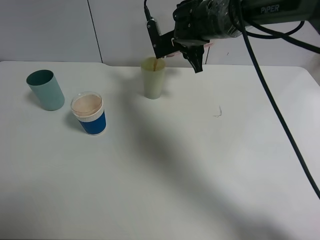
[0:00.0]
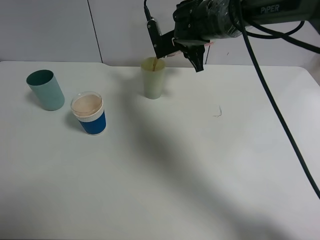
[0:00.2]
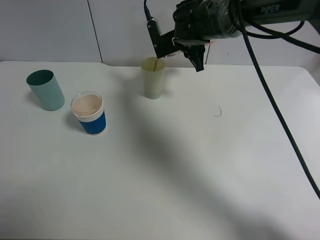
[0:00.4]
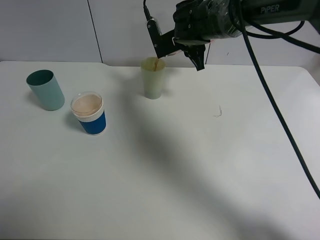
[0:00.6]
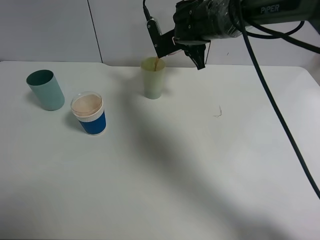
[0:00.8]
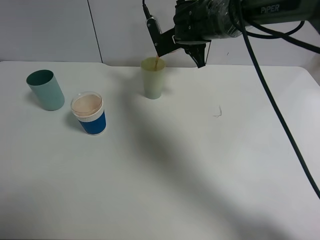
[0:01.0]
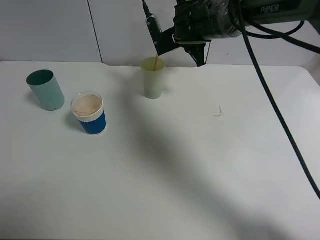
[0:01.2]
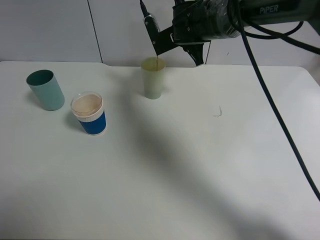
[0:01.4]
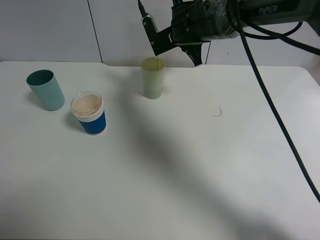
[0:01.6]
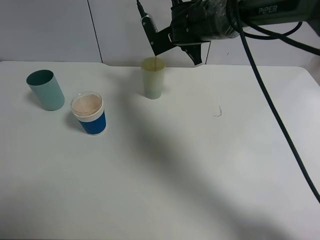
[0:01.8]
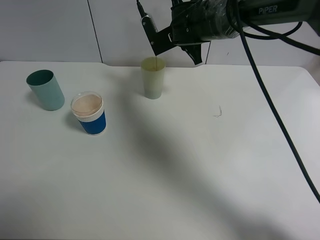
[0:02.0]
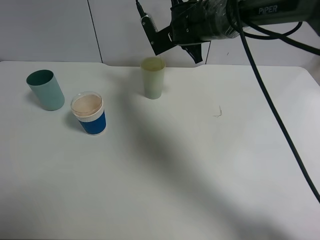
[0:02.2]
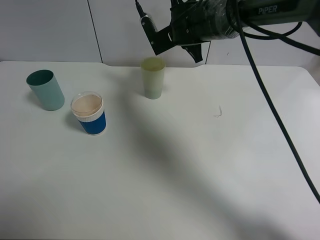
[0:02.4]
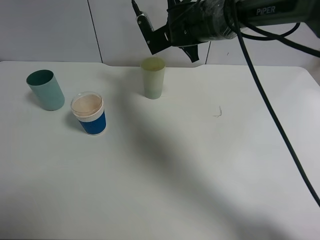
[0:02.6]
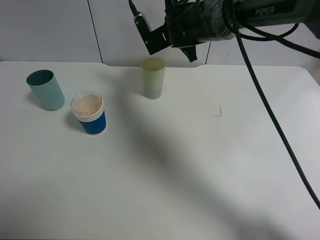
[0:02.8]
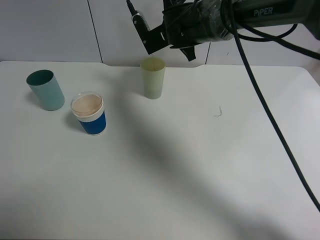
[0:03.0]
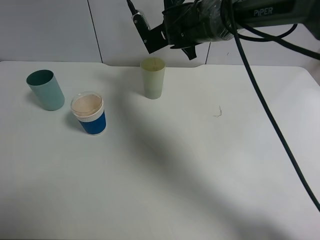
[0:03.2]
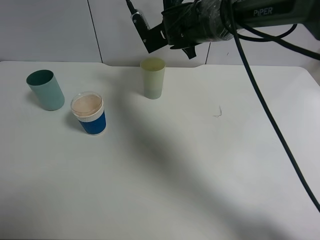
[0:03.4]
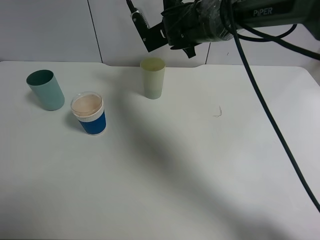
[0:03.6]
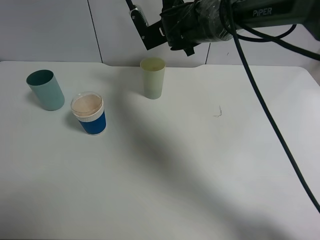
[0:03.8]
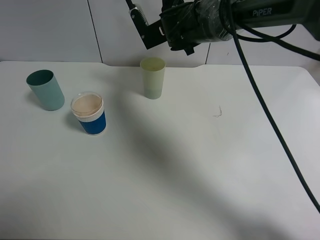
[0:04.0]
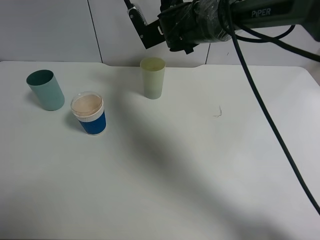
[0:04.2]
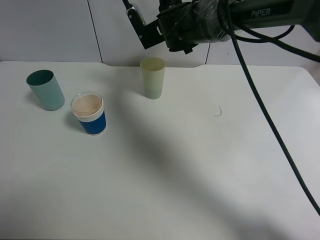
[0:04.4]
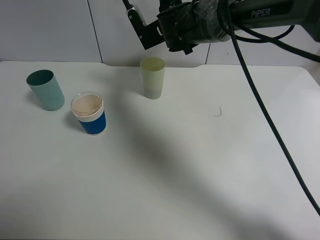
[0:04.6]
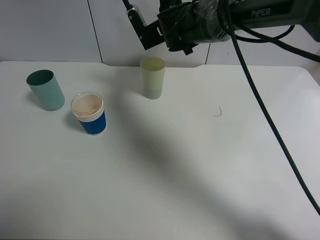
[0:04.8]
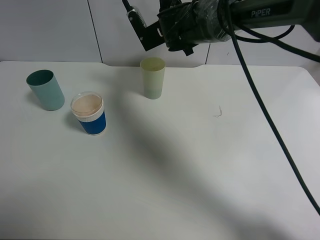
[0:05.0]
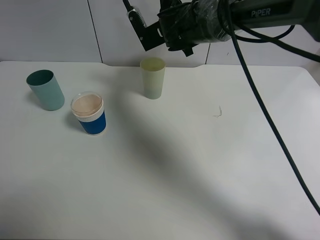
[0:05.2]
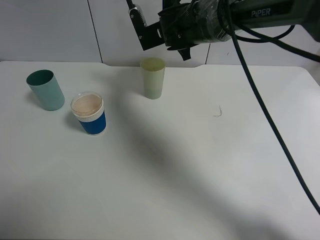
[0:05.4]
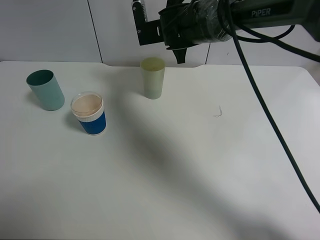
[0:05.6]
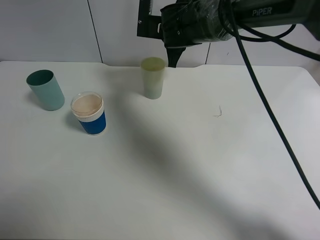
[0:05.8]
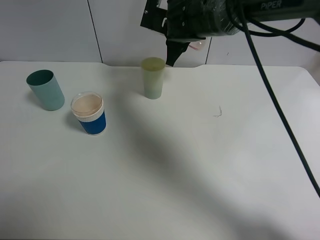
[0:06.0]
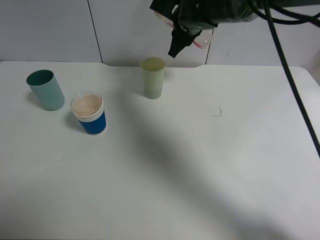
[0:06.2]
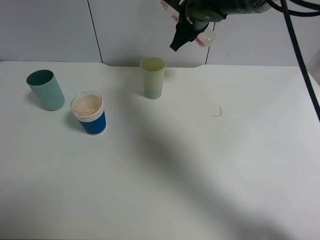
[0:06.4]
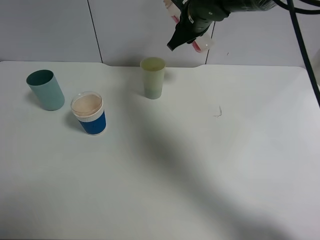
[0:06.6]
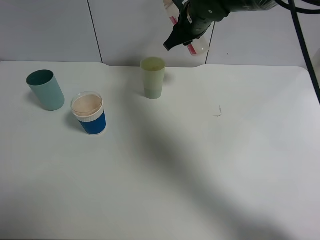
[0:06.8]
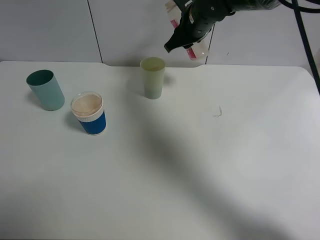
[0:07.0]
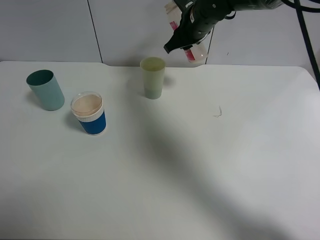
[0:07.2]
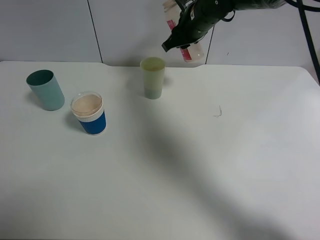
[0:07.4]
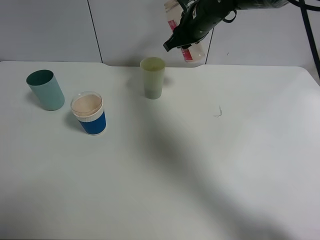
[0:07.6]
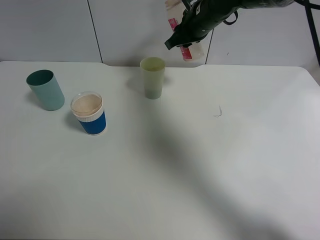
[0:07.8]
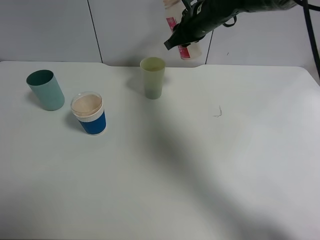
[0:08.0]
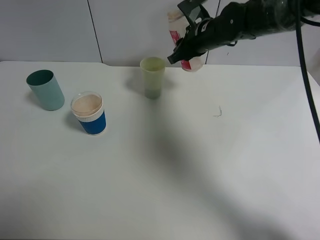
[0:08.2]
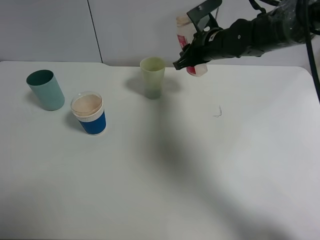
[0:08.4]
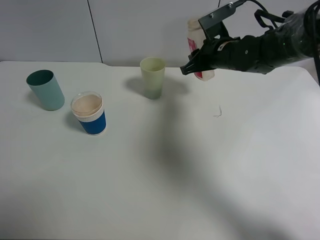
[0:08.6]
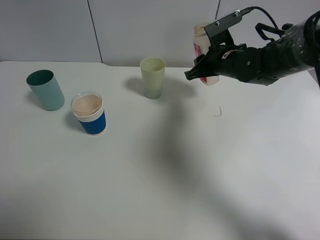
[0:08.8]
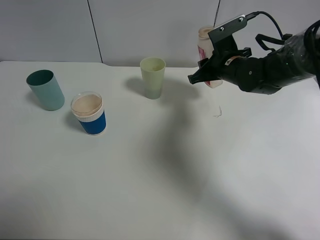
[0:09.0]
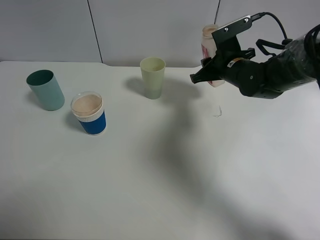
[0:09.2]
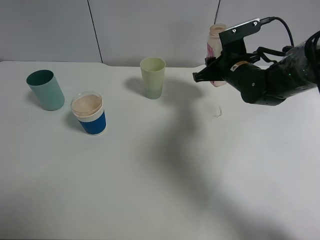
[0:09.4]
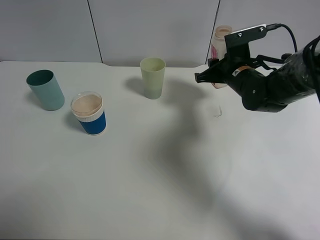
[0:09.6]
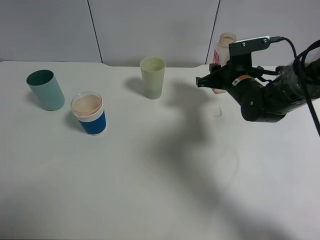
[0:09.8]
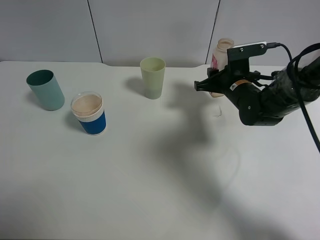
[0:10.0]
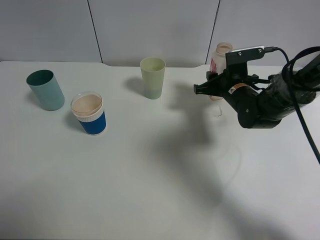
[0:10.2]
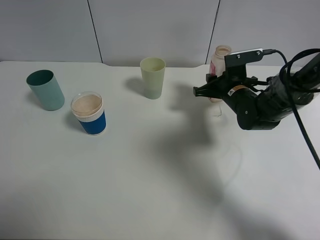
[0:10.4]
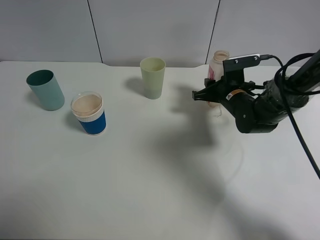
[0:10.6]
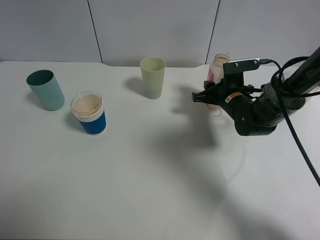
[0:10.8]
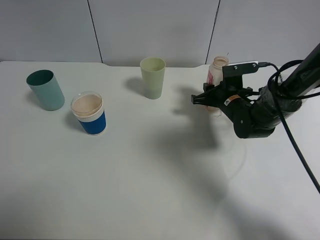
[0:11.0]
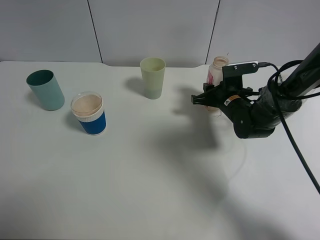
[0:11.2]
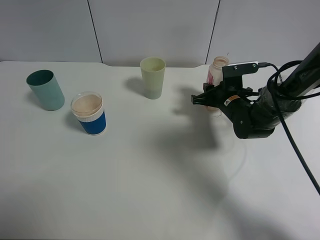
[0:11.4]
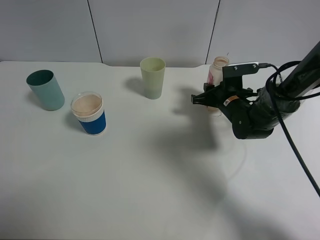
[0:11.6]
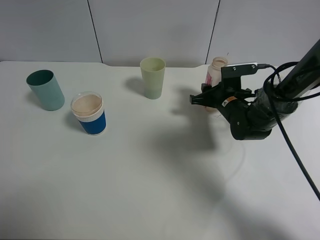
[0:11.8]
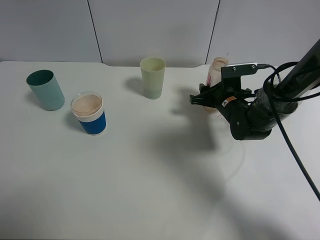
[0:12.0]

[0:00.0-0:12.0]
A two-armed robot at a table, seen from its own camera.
Task of the whole recording: use a clamp to hold the bottle of the drink, pour the beverage into a random cup, then clamp the cup containing the drink and pour the drink into another random cup.
Step, 0:00.0 to 0:02.4: Pour the drink into the green plastic cup with right gripper.
Step, 0:02.6 to 0:12.0: Place the drink bottle on the table with right gripper.
0:00.0 to 0:03.0: There are only small adjustments of the grippers.
0:03.0 to 0:04.4: The grippers move only a little.
0:07.6 to 0:09.0: The right gripper heads downward, to the right and backward, covering roughly 15 cm.
0:09.0 to 0:10.4: The right gripper goes approximately 5 cm downward.
0:10.4 to 0:12.0: The grippers move only a little.

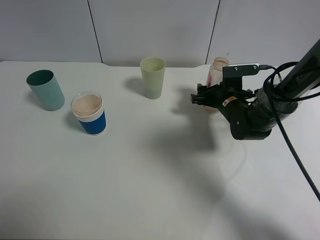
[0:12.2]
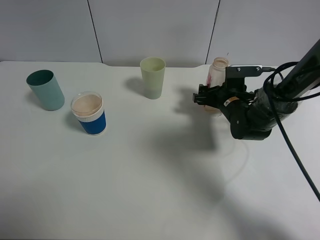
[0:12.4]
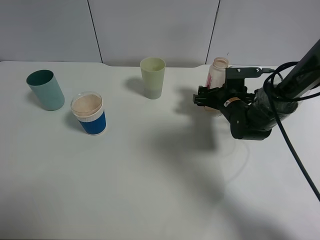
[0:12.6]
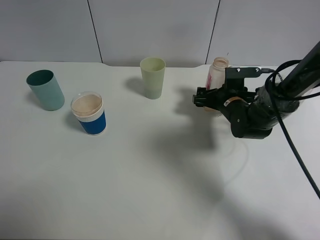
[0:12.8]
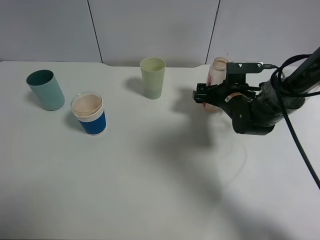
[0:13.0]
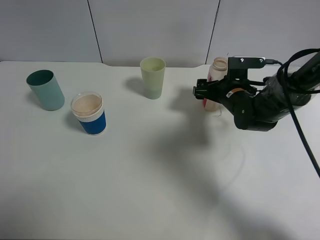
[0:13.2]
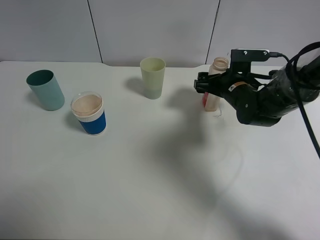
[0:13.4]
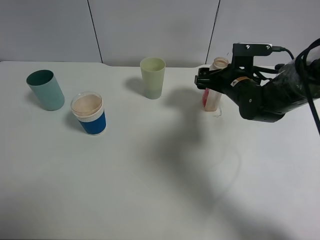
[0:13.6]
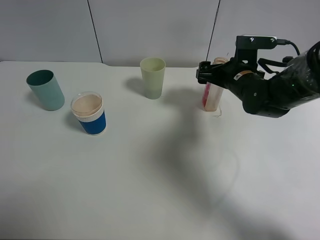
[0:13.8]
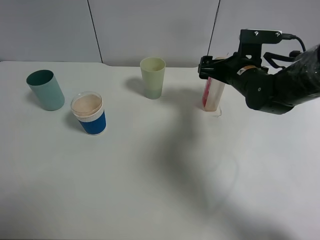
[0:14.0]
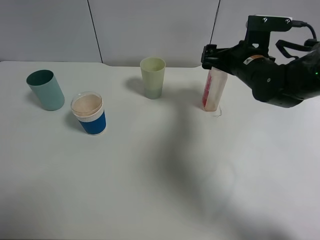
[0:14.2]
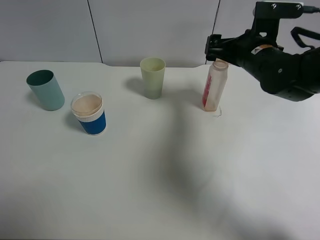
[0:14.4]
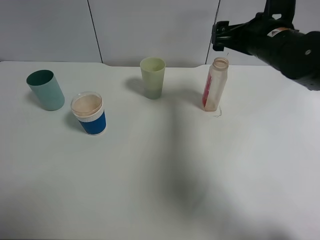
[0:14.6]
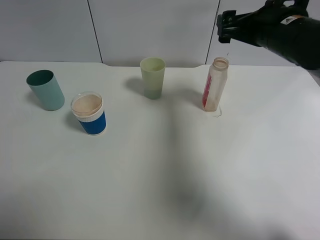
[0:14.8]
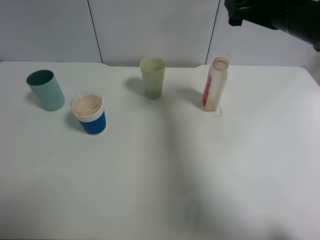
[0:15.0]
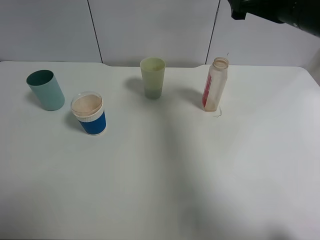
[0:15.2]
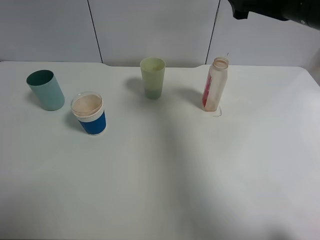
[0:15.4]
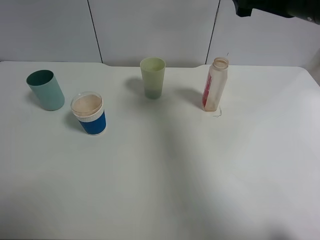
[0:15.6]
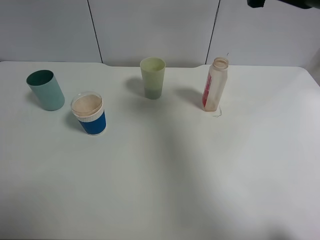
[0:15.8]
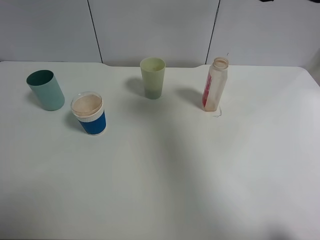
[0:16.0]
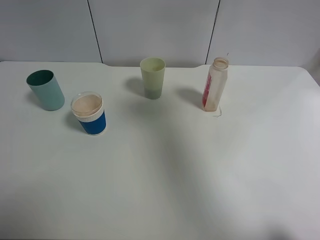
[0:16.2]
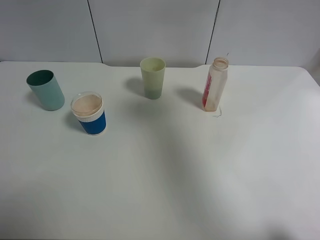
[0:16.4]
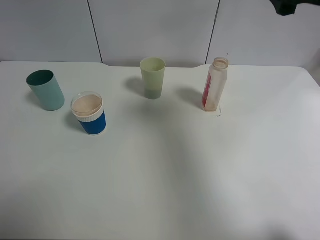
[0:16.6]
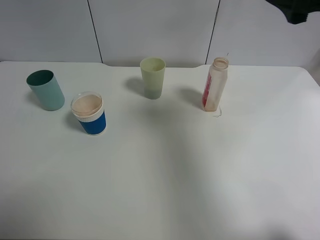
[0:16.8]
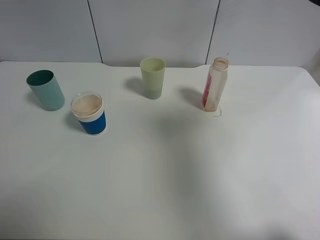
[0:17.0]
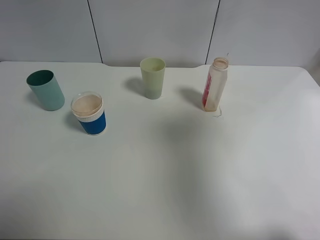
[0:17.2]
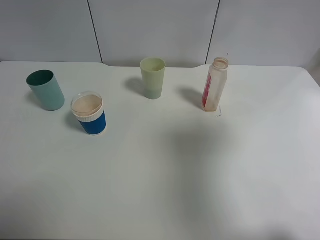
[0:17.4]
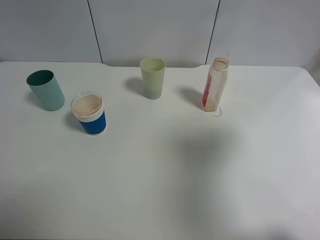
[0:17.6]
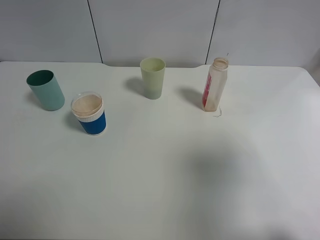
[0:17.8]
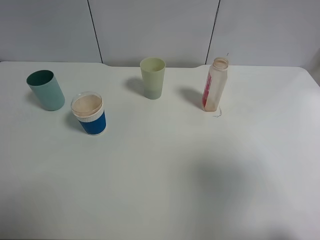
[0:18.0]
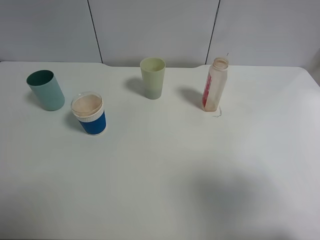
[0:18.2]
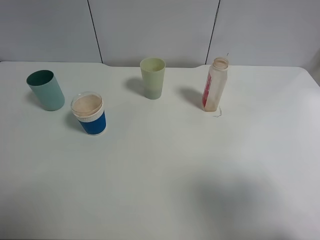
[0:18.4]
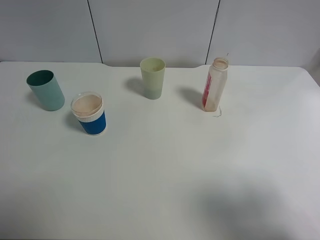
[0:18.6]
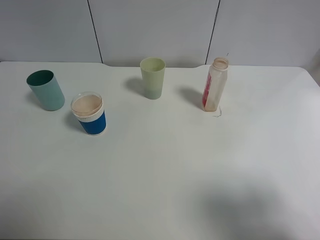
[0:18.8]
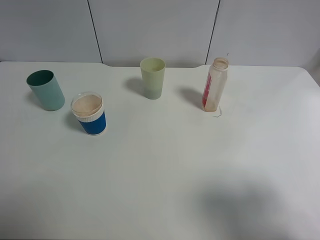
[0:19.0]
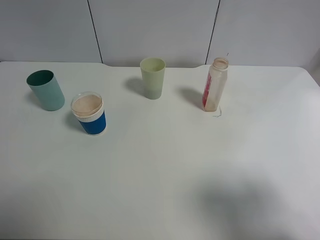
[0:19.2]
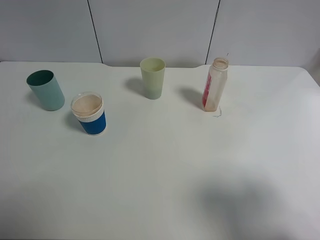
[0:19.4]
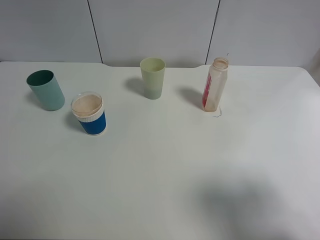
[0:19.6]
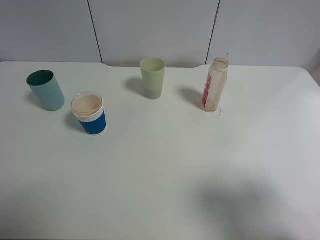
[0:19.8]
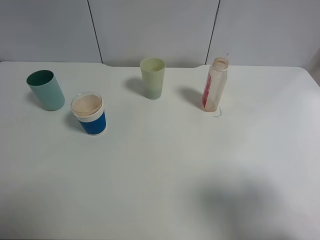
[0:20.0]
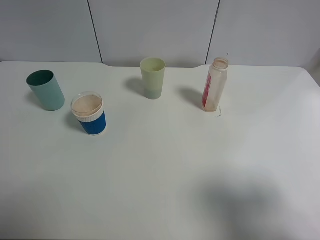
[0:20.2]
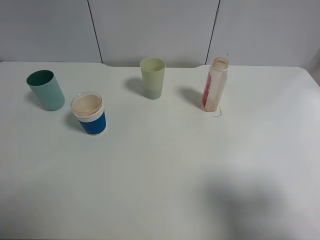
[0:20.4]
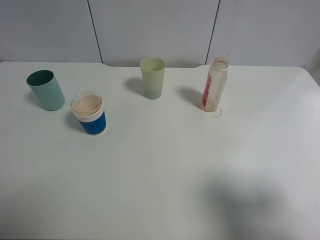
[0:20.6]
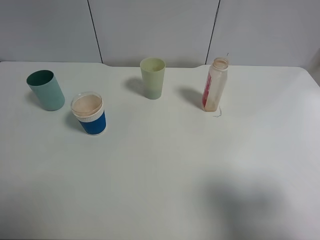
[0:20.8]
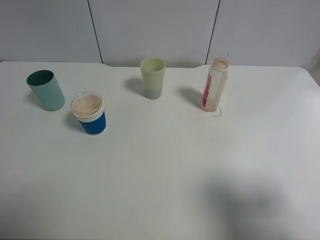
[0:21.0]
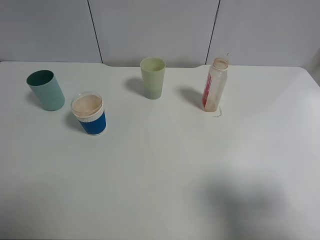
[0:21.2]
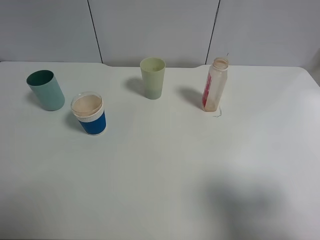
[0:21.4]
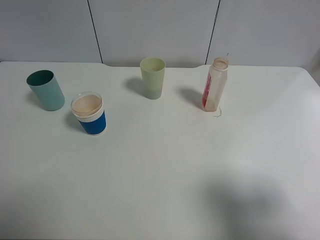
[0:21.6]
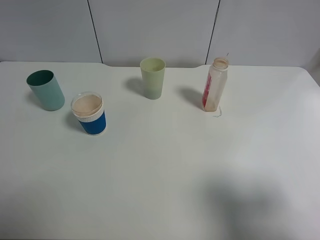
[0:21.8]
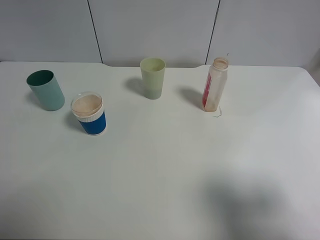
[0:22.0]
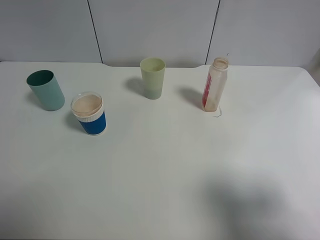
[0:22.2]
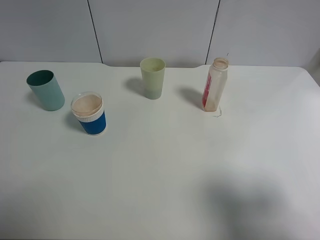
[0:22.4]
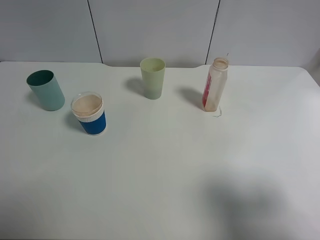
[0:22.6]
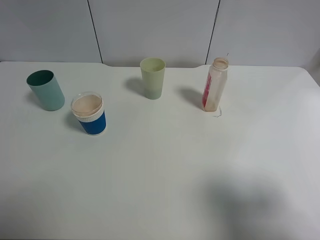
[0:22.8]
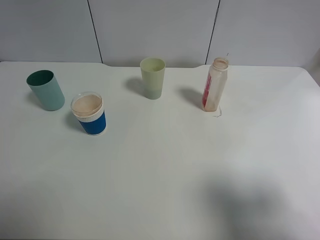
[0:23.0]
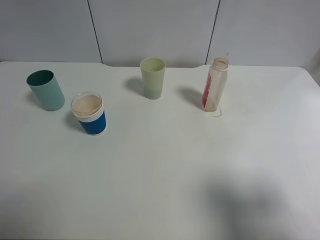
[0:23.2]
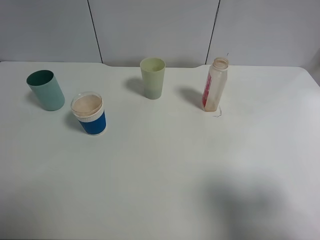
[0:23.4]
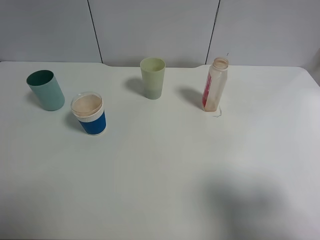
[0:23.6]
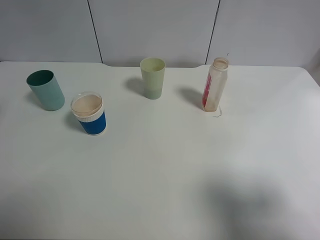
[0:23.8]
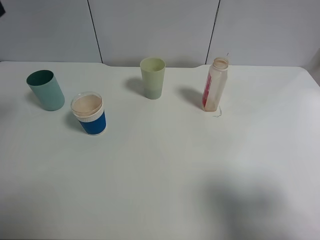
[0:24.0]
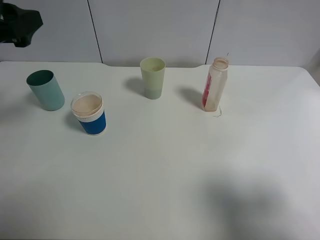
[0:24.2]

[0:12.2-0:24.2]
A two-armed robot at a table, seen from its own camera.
Task of the whole recording: use a clamp to hold the bottle of the drink, pour the beverage into a random cup, then clamp the cup containing the drink and pour the drink into another random cup.
0:12.2 to 0:13.8: The right gripper goes approximately 5 cm upward.
0:13.8 to 0:15.2: The right gripper goes about 20 cm upward and backward.
0:15.2 to 0:16.6: The right gripper moves backward, approximately 5 cm.
0:16.6 to 0:18.2: The right gripper is displaced backward and to the right by about 20 cm.
0:22.6 to 0:24.2: The left gripper is displaced forward by some 20 cm.
